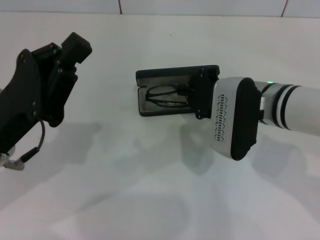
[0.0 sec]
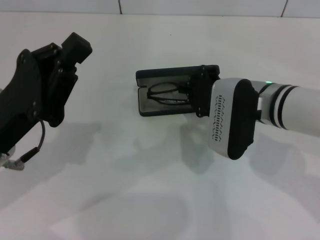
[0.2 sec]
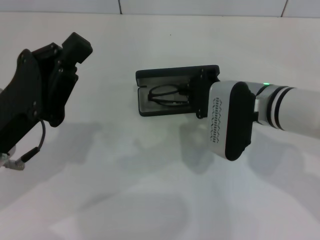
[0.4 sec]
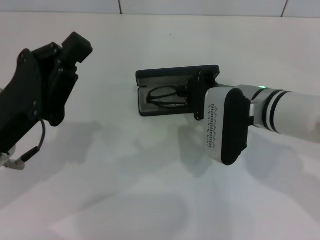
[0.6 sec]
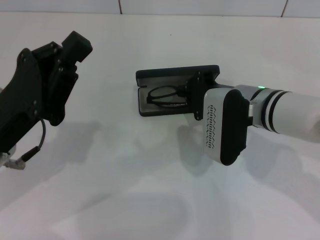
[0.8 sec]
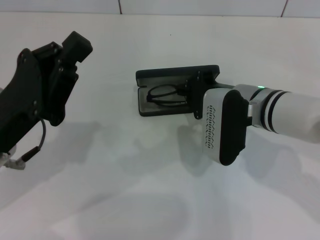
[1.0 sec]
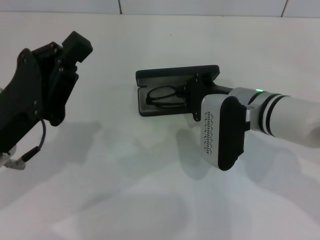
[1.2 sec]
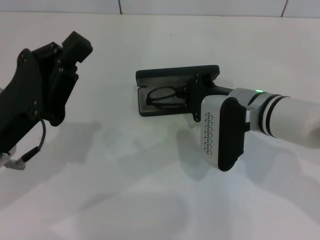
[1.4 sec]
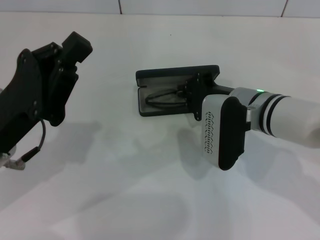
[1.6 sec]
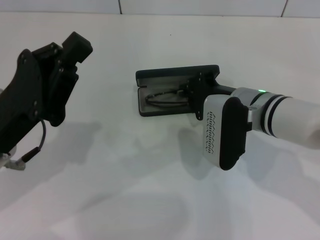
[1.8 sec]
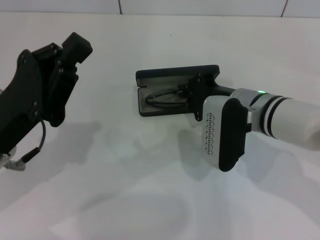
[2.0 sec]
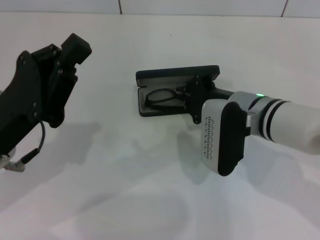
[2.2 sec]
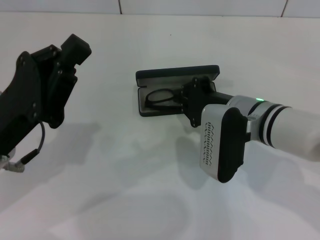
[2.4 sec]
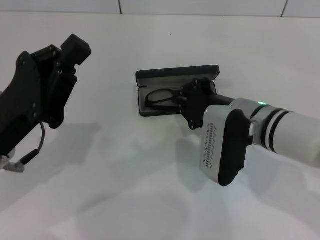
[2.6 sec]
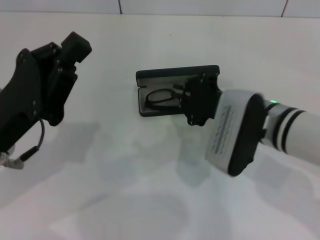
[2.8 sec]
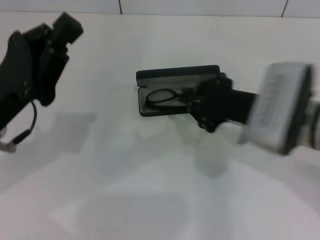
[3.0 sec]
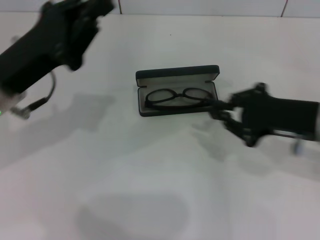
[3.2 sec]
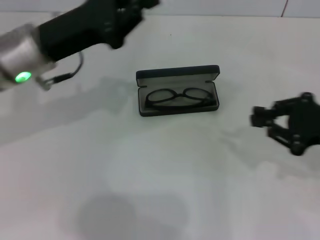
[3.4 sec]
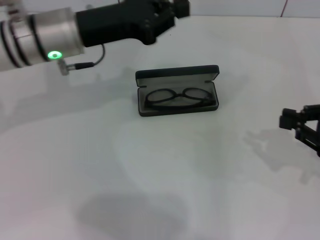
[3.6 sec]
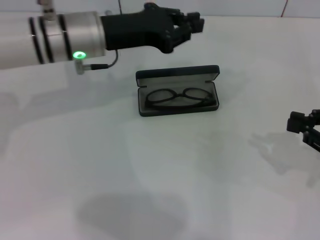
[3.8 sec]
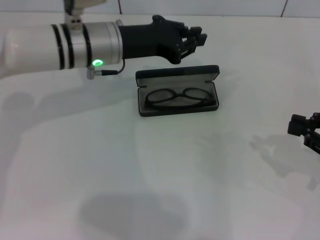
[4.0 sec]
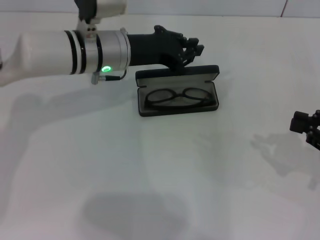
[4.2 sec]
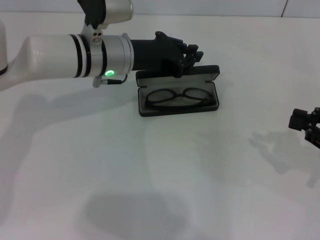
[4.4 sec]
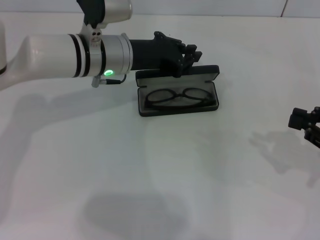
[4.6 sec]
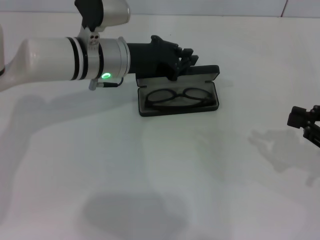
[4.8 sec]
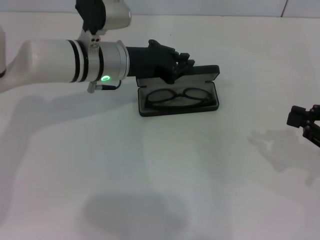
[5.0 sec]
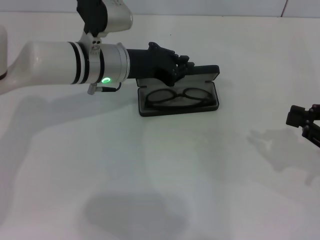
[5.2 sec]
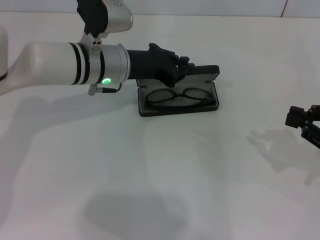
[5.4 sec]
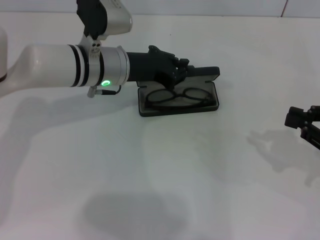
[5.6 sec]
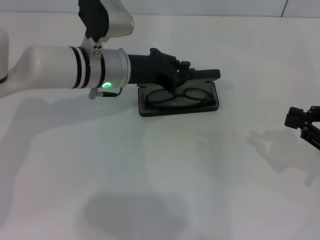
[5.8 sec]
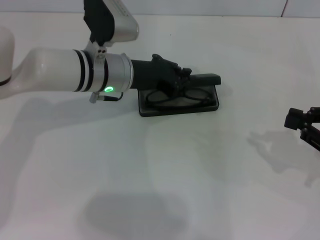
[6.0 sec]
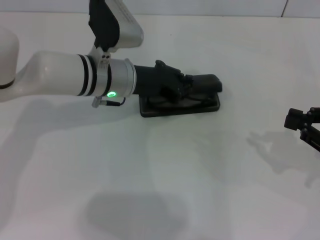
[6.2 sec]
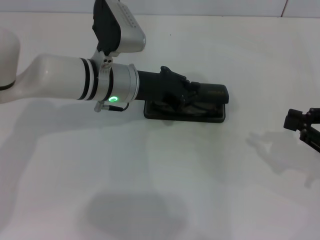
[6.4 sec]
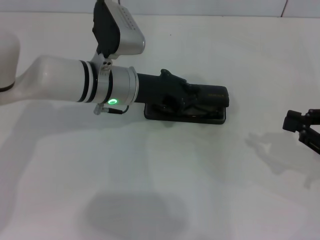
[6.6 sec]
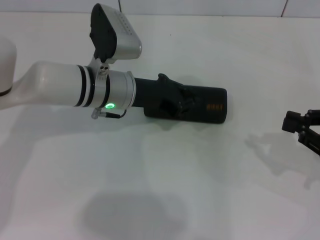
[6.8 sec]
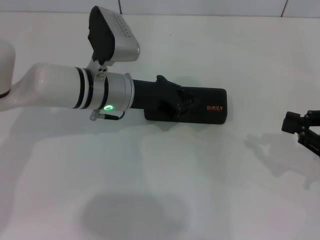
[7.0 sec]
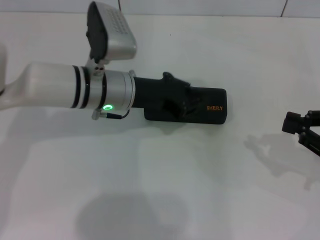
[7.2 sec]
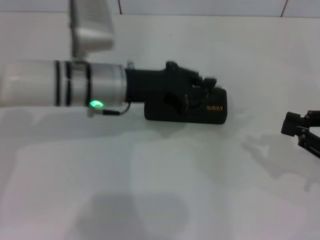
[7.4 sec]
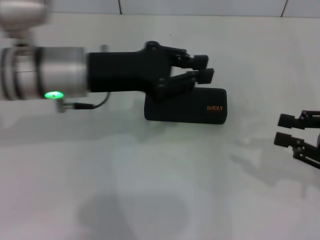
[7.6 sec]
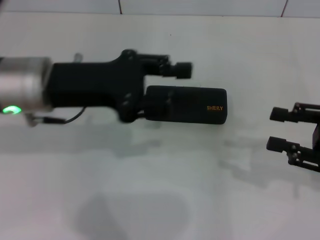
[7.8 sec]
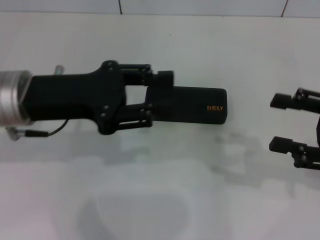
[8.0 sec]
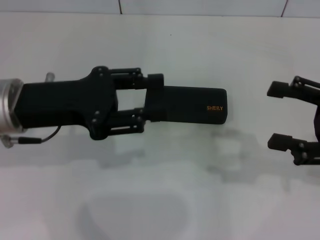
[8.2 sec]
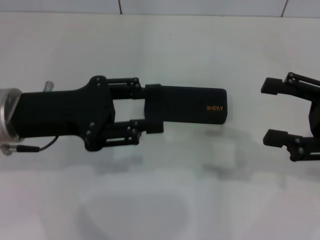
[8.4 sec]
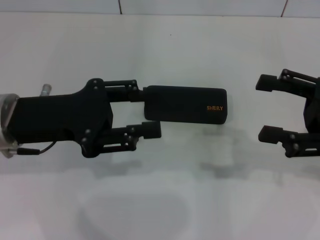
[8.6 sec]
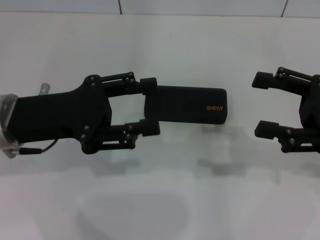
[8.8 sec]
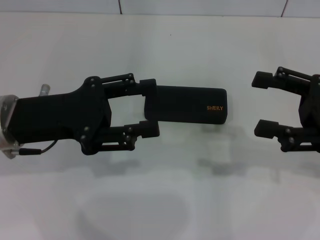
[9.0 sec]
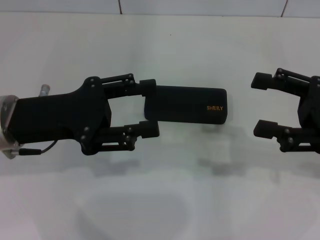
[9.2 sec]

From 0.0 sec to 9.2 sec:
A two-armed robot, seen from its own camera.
Step, from 0.0 sec to 2.4 sec: Put the glasses into the case with your right hand.
Step, from 2.6 sec to 6.8 sec: Close the glasses case with your left hand.
From 0.0 sec to 1.6 sec: The grippers move only a little.
From 1.6 sec to 3.0 sec: The right gripper moves approximately 5 cm.
From 3.0 sec to 4.6 sec: The left gripper shifts approximately 20 cm forward and to the right, while the right gripper heads to the right, covering some 20 cm.
From 4.6 sec to 6.2 sec: The grippers move only a little.
From 6.2 sec to 7.6 sec: The left gripper travels upward and backward by some 10 cm.
From 7.6 sec to 9.2 sec: The left gripper is displaced to the left and backward by about 10 cm, and opens. Meanwhile the right gripper changes place by approximately 5 cm, and opens its fingers.
